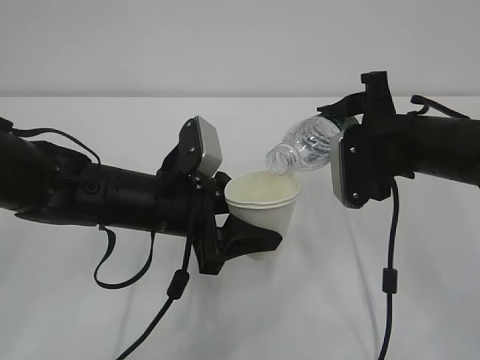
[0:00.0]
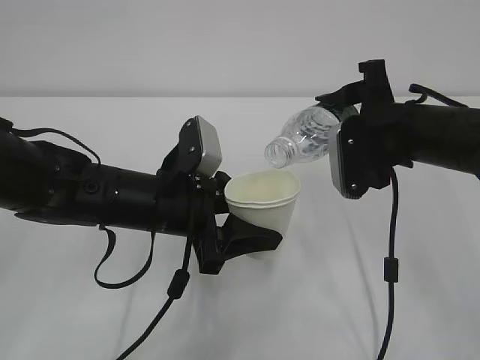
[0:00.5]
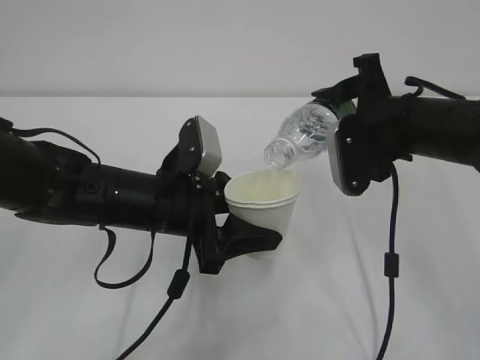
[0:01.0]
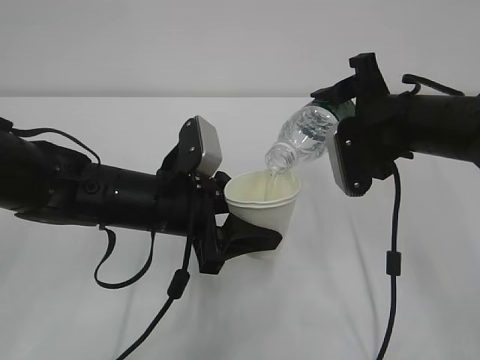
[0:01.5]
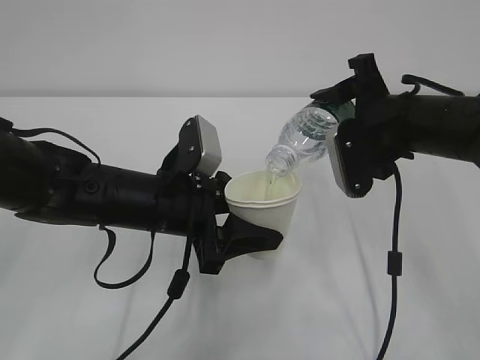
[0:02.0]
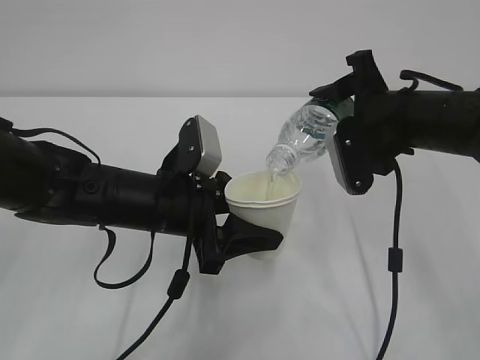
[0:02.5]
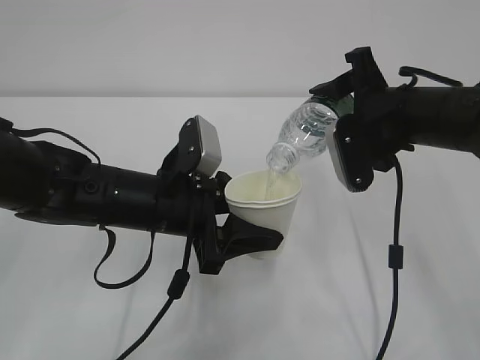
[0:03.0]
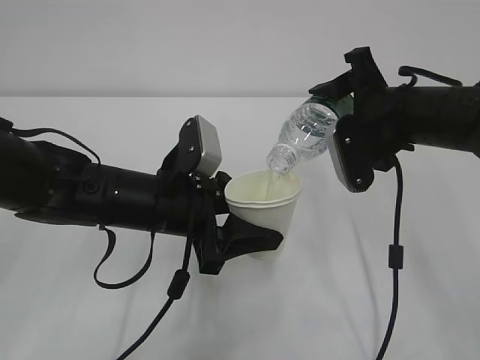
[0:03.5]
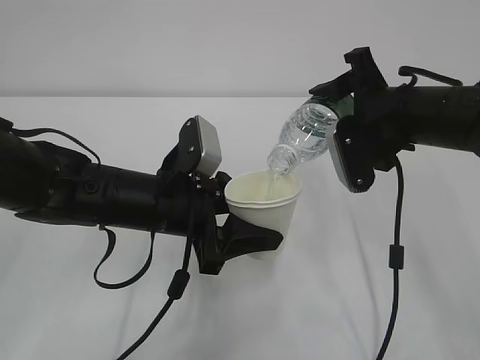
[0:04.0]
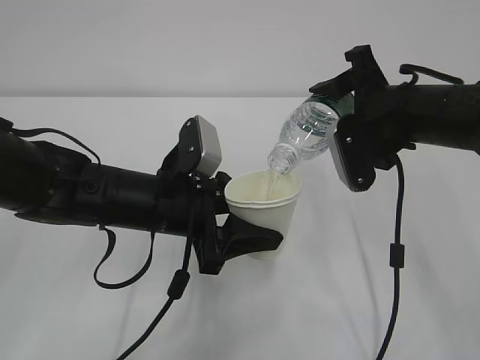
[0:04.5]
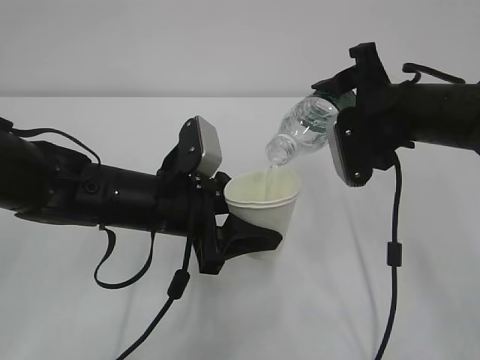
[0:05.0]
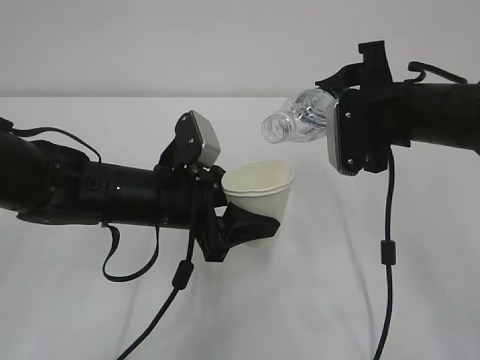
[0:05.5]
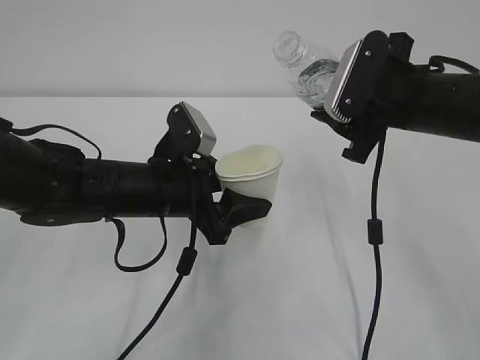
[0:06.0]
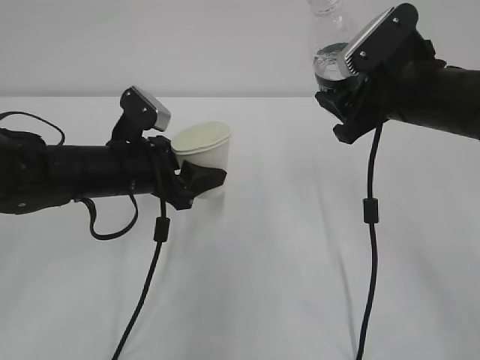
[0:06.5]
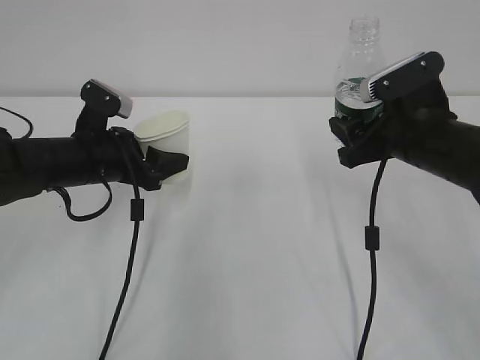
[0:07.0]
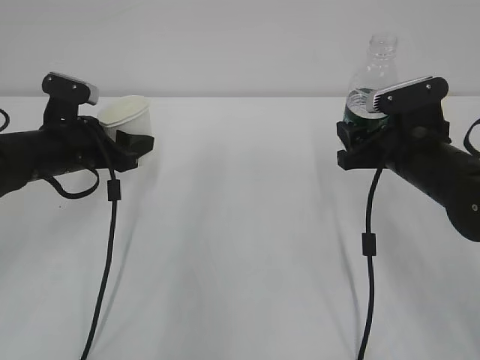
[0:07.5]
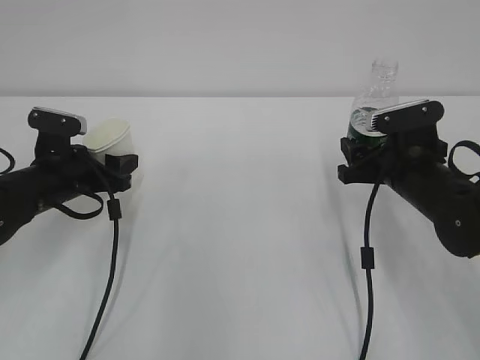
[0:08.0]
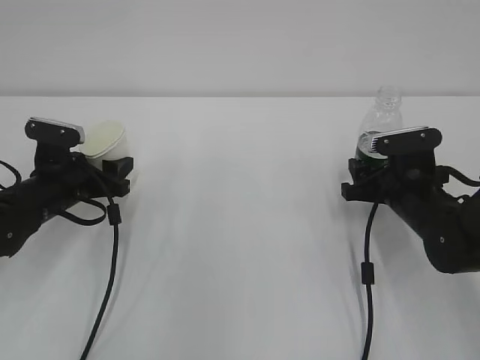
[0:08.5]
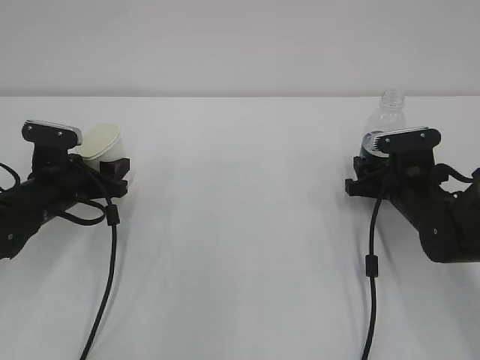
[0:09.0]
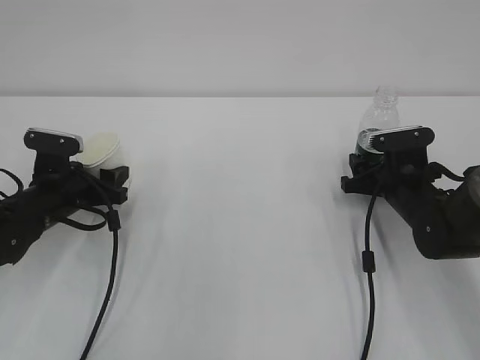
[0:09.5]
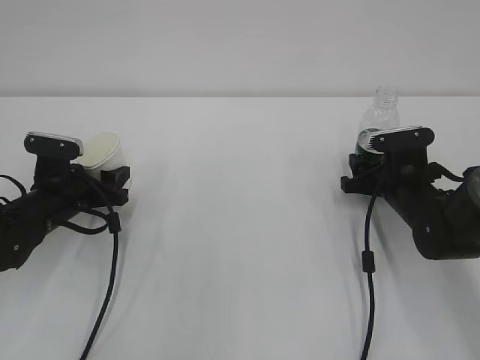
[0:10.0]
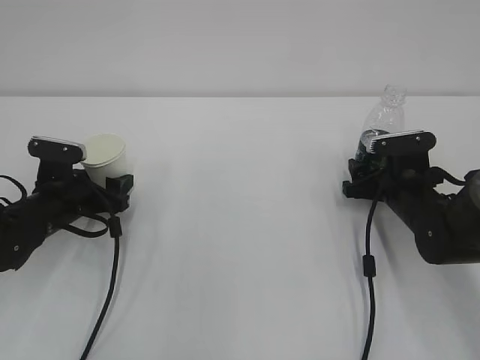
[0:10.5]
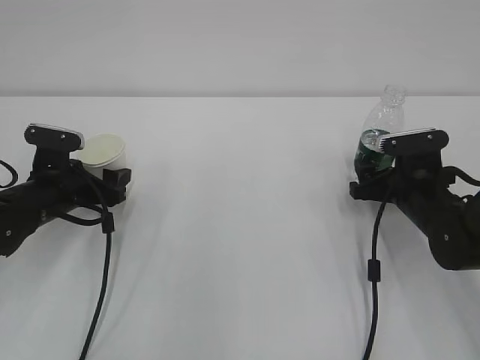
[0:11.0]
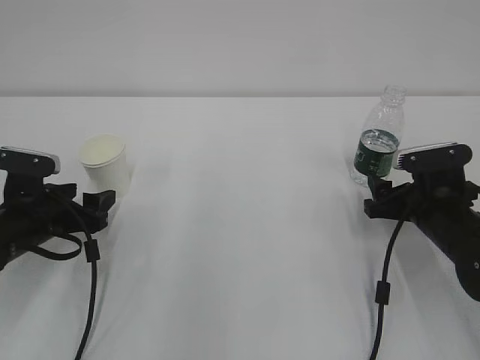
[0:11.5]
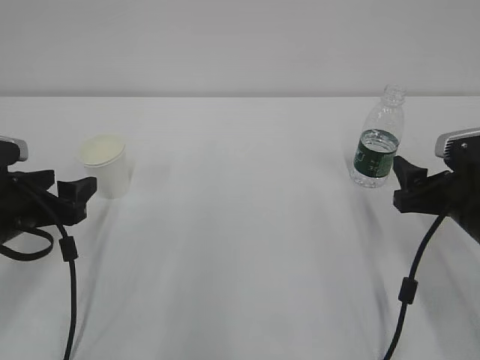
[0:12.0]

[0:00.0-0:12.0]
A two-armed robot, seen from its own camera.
0:00.0 to 0:02.0: There are only small adjustments of the grippers.
0:02.0 to 0:04.0: Both grippers stay put.
0:06.0 to 0:08.0: The left gripper heads to the left and forward, covering roughly 15 cm. The right gripper shifts about 10 cm downward.
0:08.0 to 0:10.0: The right gripper moves downward, about 5 cm.
0:10.0 to 0:12.0: Both grippers travel together backward and upward, some 10 cm. The left gripper opens up.

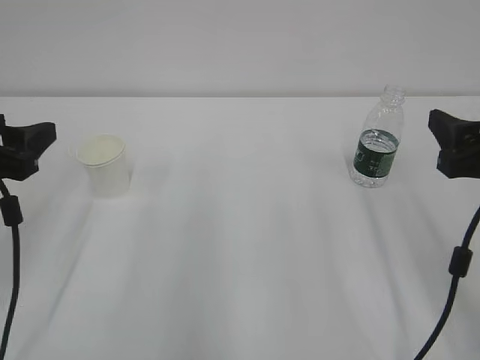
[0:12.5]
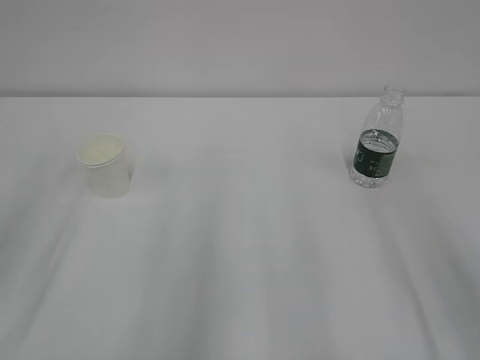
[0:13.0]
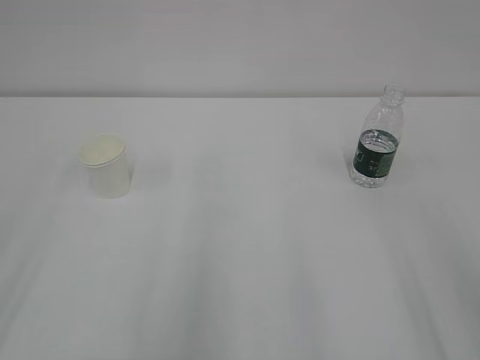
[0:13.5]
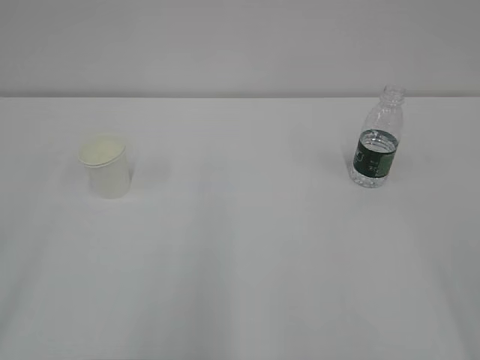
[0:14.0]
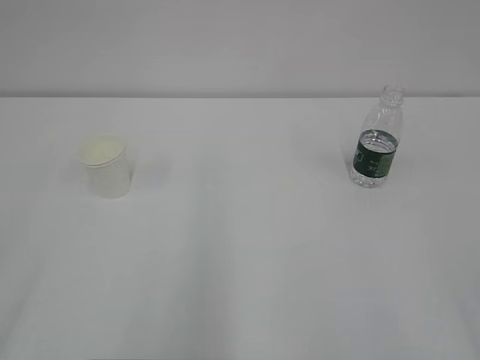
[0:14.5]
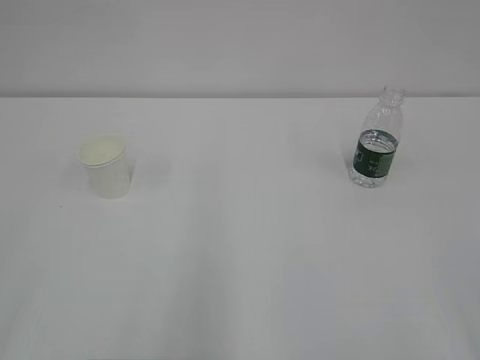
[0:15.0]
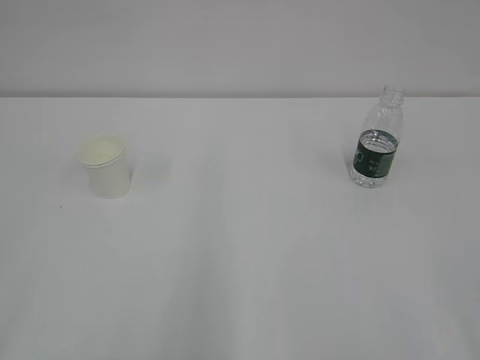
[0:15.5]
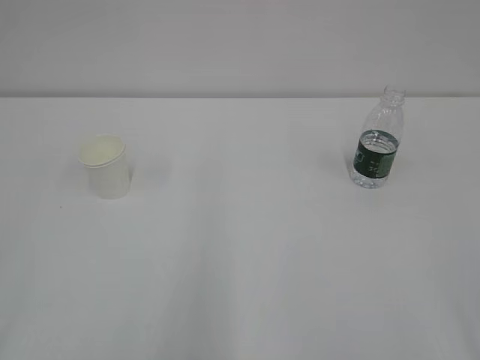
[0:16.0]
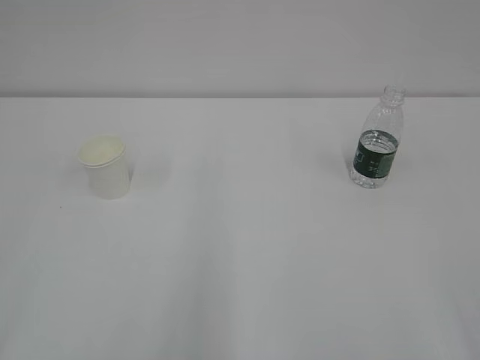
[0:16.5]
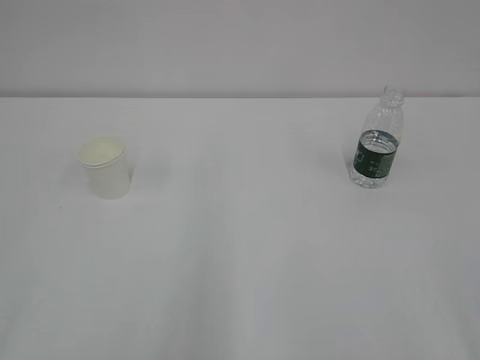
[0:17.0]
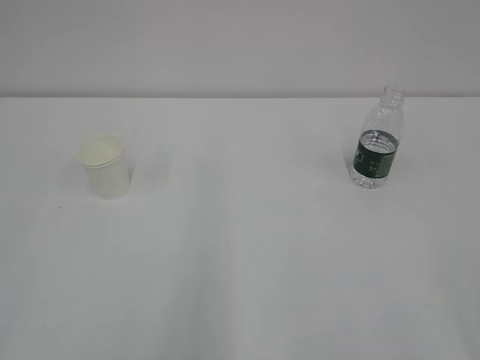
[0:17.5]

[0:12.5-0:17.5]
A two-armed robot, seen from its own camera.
0:12.5 to 0:15.0: Both grippers move backward, about 25 cm.
